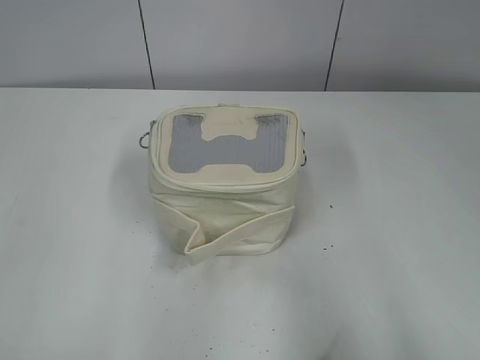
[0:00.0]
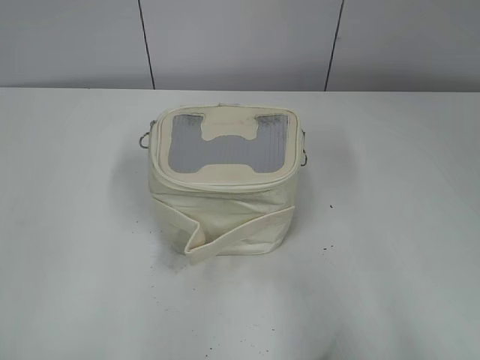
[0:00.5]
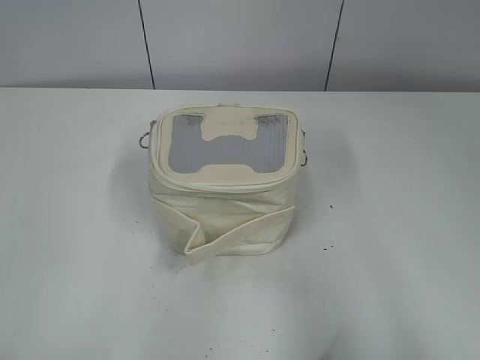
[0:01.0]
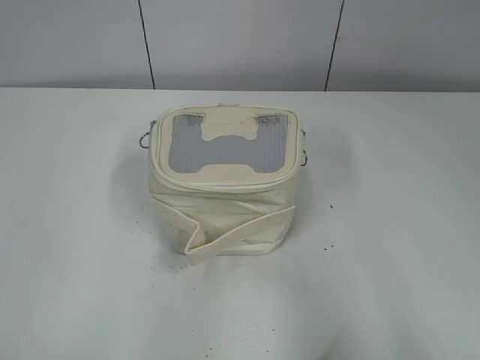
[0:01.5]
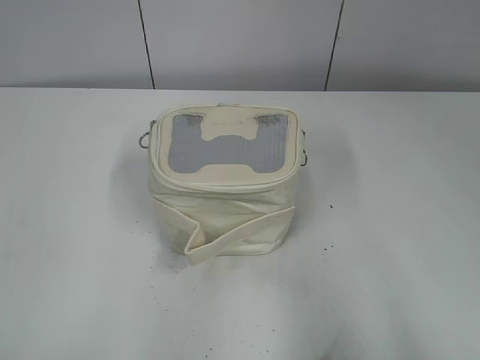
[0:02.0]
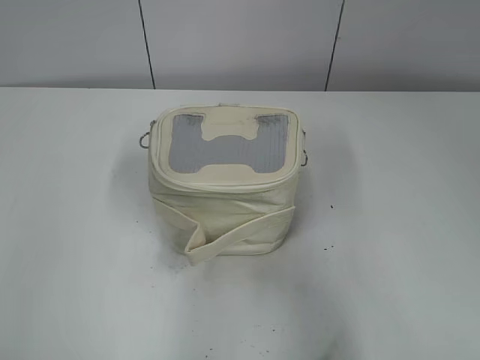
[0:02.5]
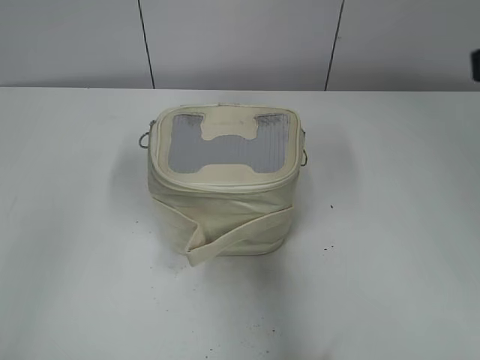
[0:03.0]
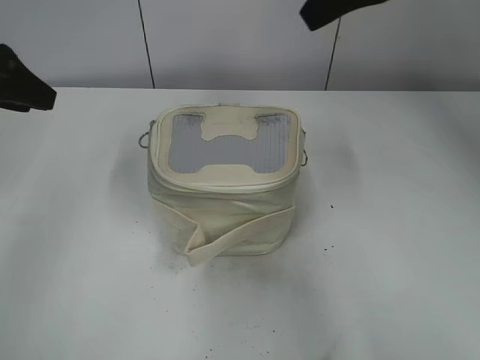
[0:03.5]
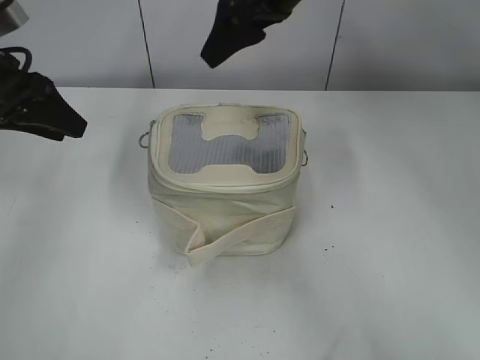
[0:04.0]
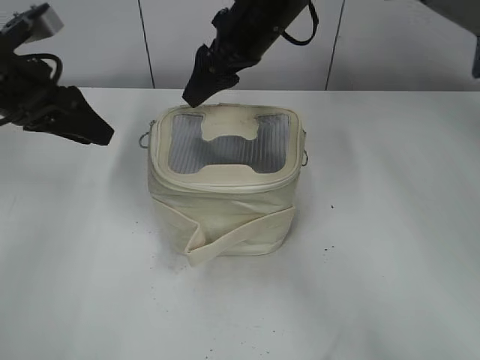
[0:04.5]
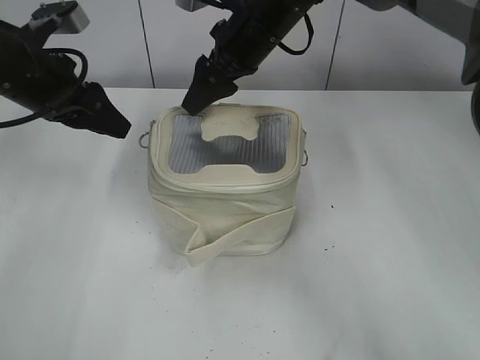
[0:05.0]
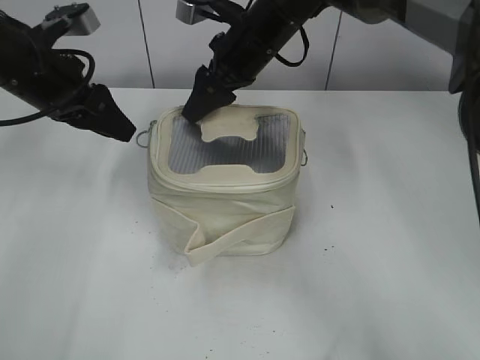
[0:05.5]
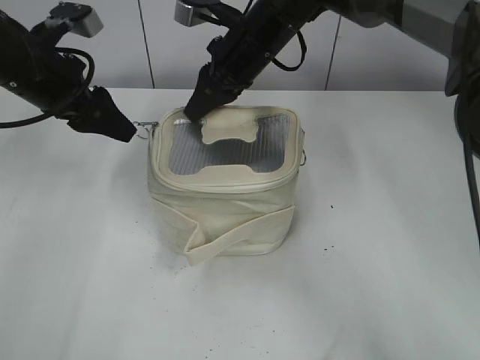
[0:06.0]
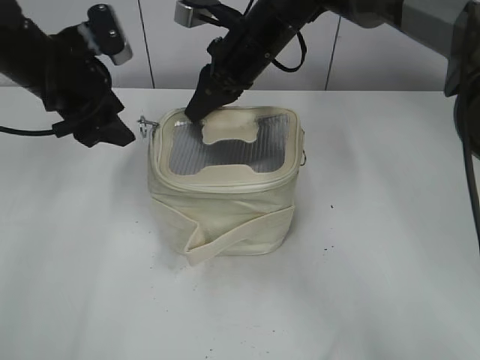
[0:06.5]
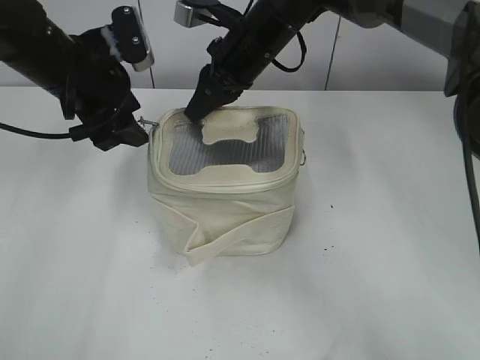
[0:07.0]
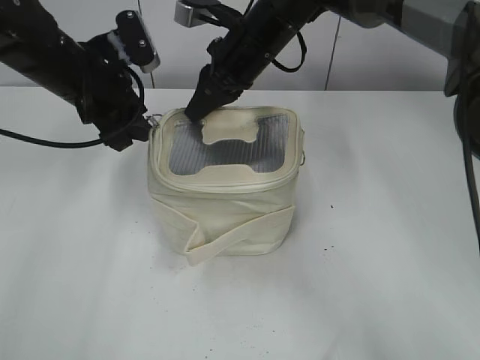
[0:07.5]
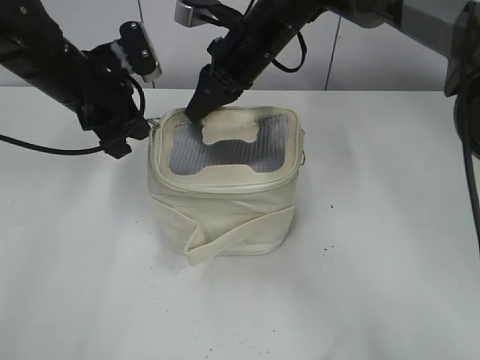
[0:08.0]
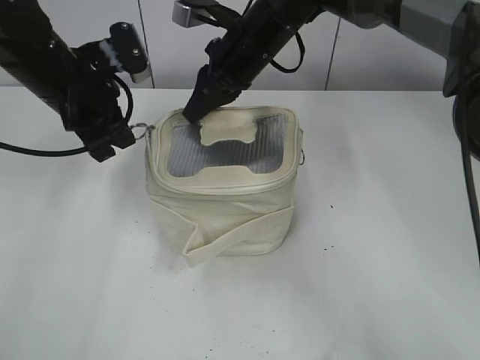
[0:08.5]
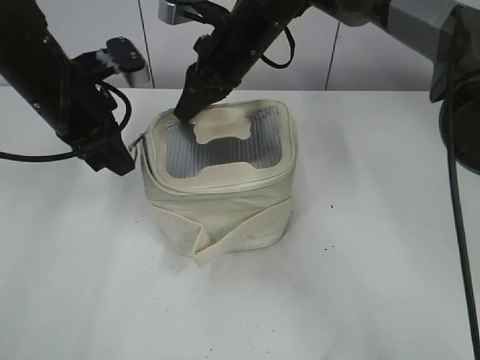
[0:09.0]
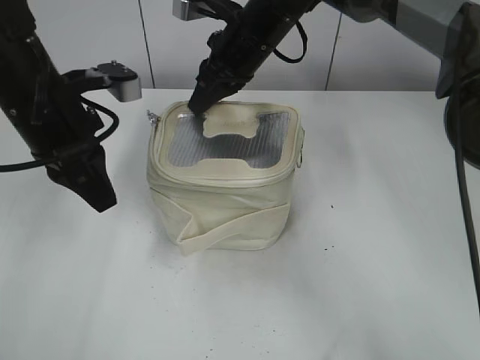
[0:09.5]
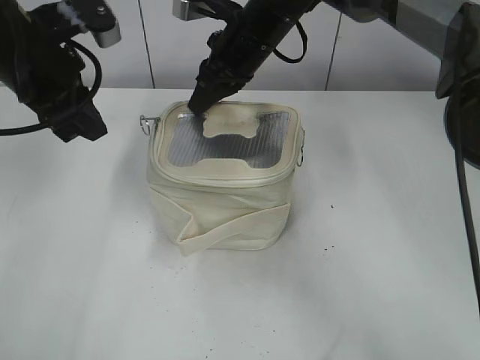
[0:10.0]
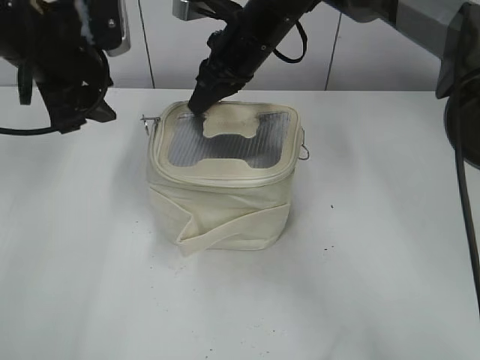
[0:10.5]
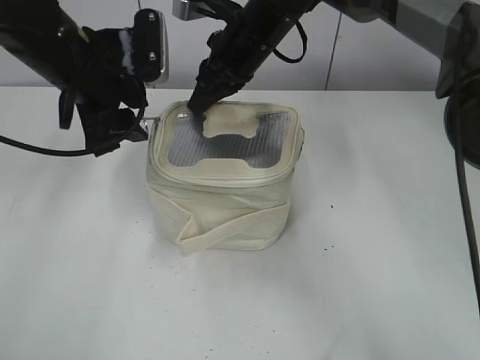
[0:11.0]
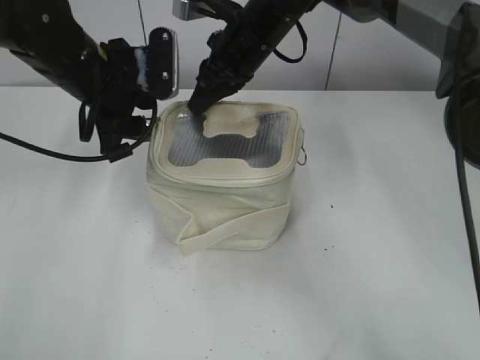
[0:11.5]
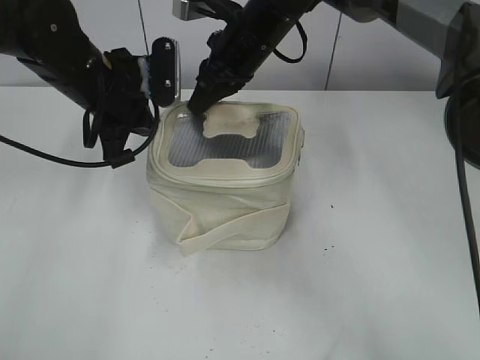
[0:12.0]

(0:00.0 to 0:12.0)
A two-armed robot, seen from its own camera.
0:02.0 - 0:04.0: The right gripper goes approximately 50 cm forward and to the left. Meanwhile the left gripper travels forward by approximately 35 cm.
0:04.0 - 0:06.0: The right gripper is displaced downward by about 10 cm, and closes its fingers; the left gripper travels to the right by about 5 cm.
0:06.0 - 0:08.0: The left gripper ends up approximately 5 cm from where it was, and closes its fingers.
0:08.0 - 0:10.0: The left gripper heads upward, covering roughly 5 cm.
0:10.0 - 0:12.0: The left gripper goes approximately 5 cm downward, and opens and closes again.

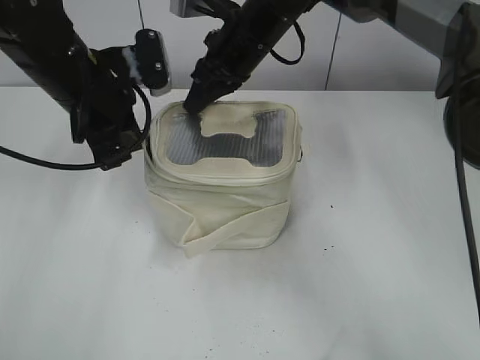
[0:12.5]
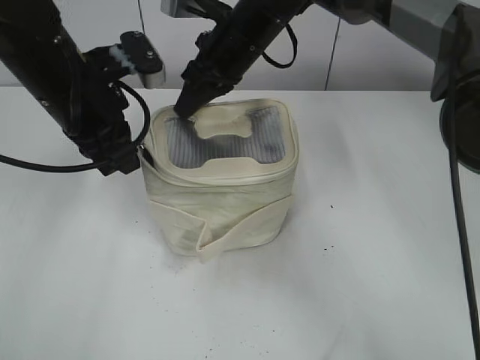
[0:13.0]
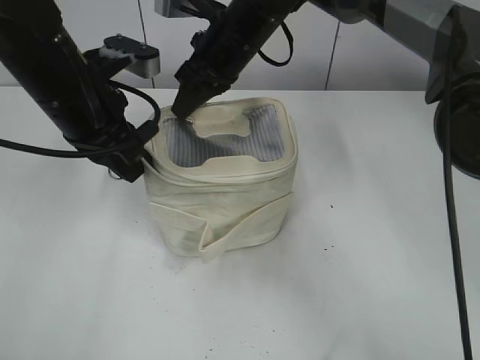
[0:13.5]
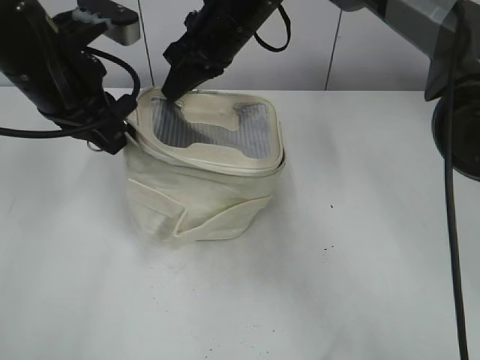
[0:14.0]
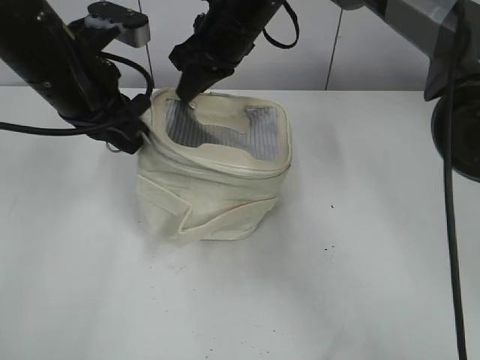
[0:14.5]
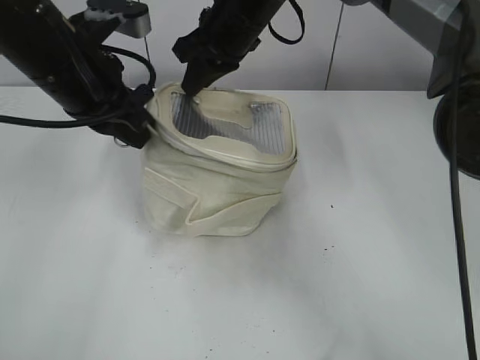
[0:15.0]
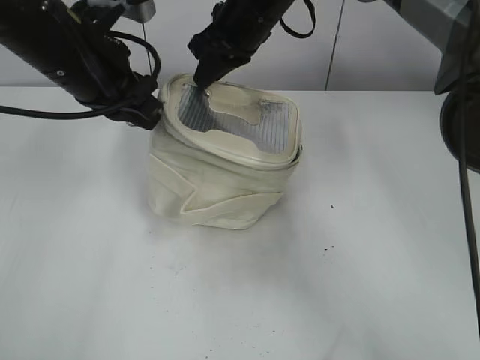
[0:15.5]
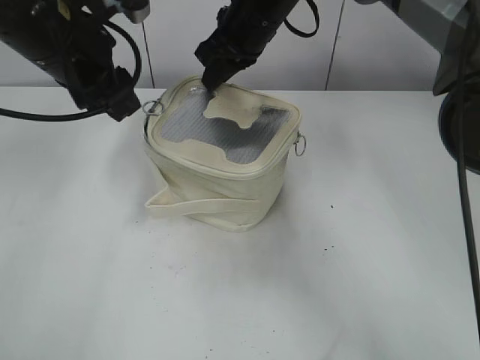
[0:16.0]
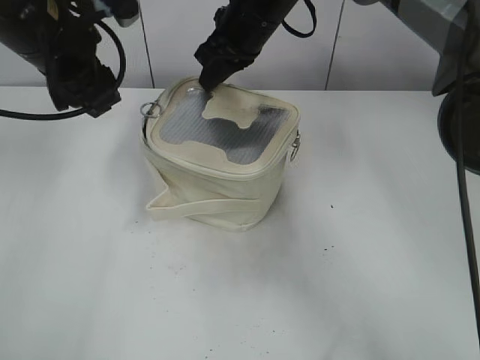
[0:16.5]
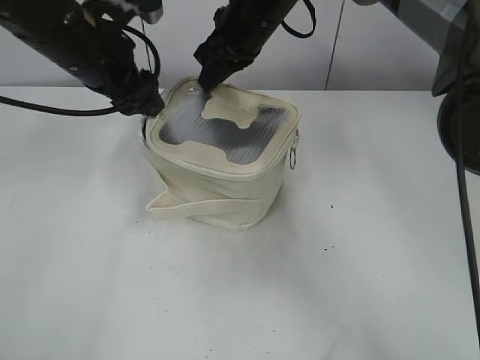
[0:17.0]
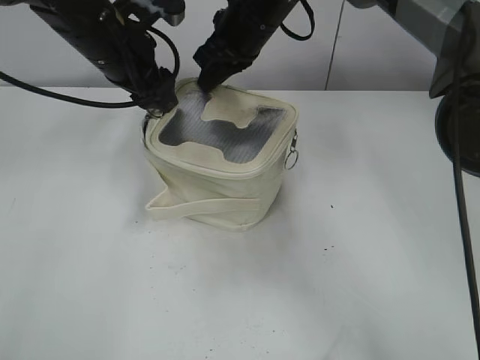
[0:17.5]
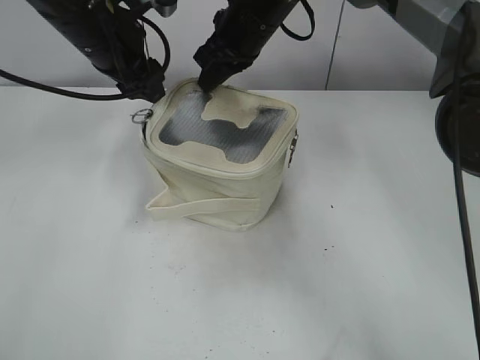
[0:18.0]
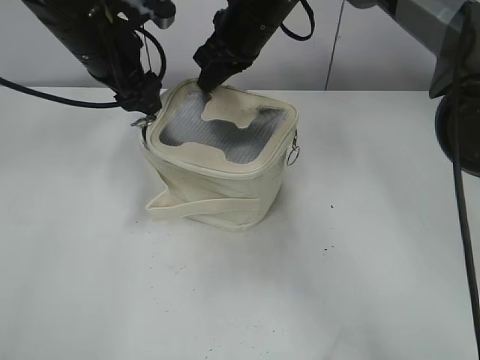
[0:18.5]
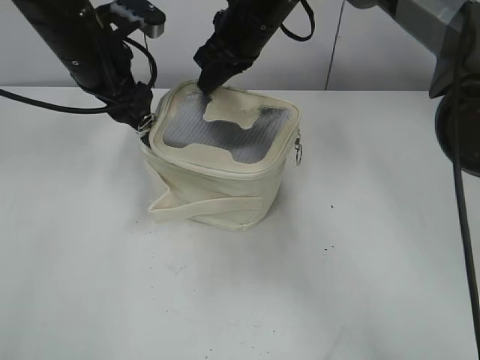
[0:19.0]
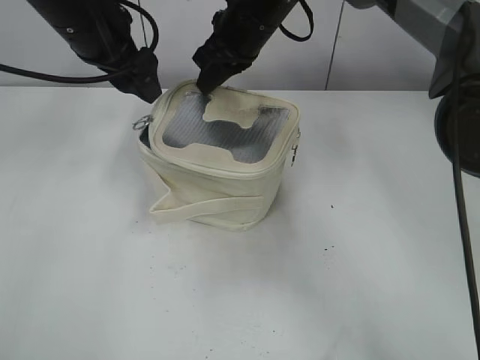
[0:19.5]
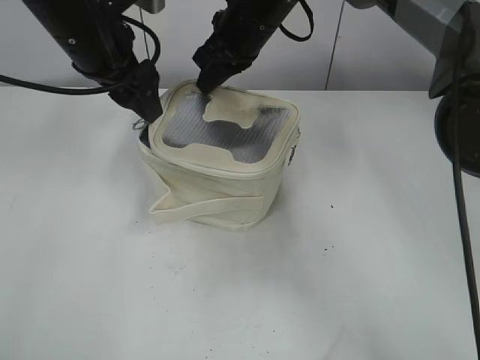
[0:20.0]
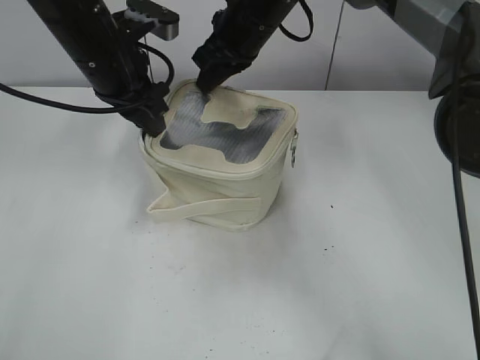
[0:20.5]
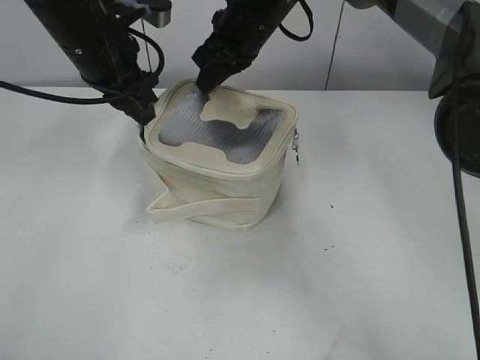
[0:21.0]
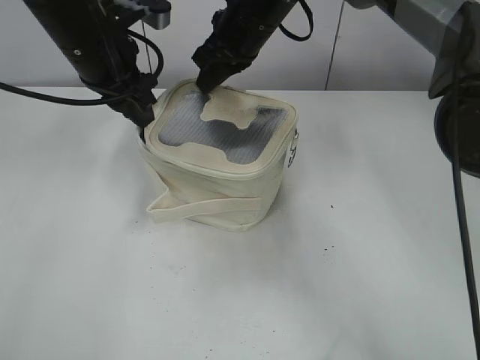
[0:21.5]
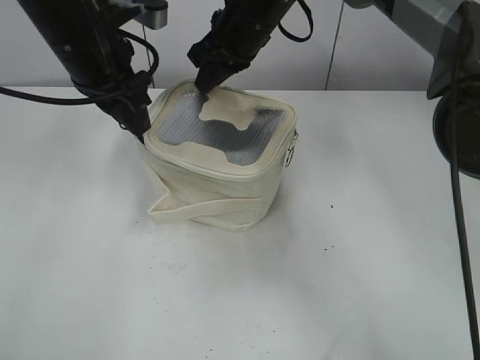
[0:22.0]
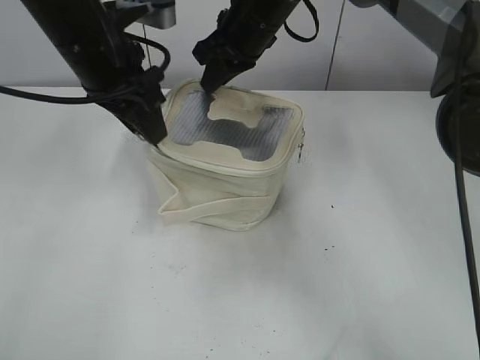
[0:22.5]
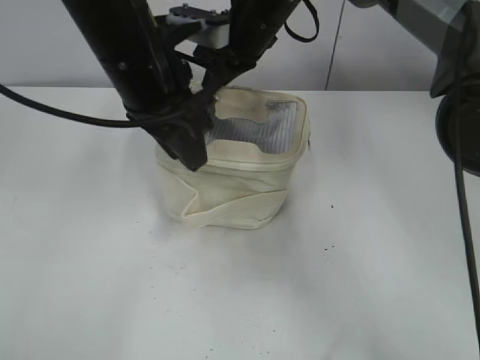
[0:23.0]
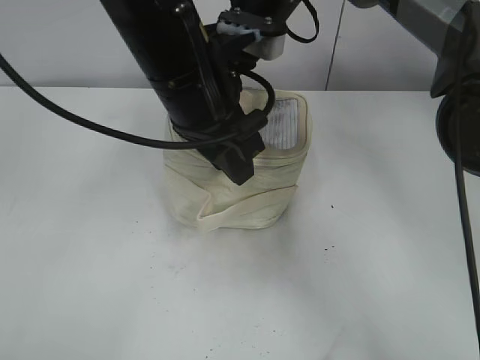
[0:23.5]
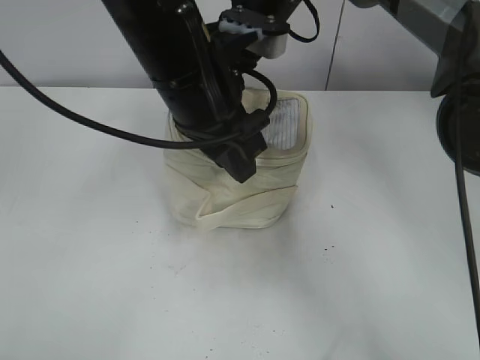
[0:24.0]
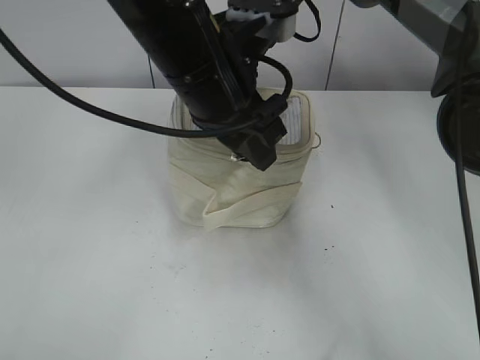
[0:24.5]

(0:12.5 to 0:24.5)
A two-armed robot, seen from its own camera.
0:14.5 - 0:16.5: The left gripper opens up.
0:16.5 - 0:18.5: The left gripper moves forward, approximately 5 cm.
0:18.5 - 0:20.5: The left gripper closes its fingers.
0:20.5 - 0:22.5: The grippers stay close to where they were, moving slightly.
0:22.5 - 0:24.5: The left gripper travels to the right and backward by about 10 cm.

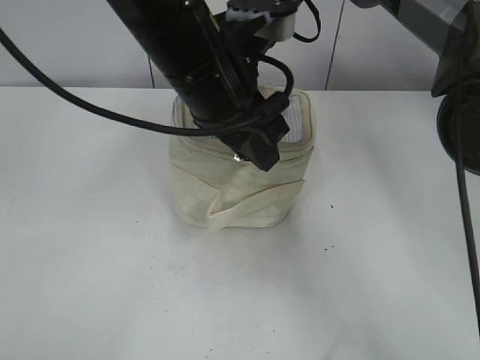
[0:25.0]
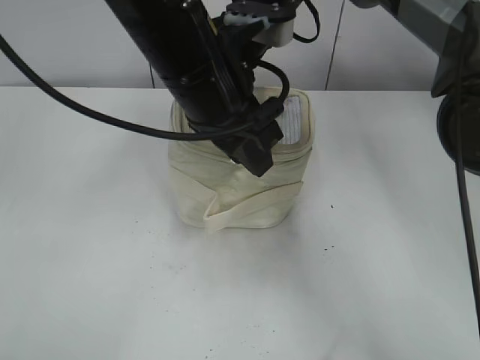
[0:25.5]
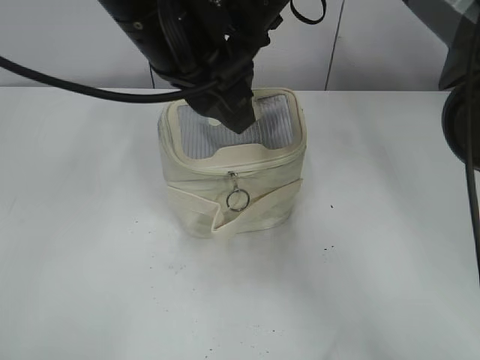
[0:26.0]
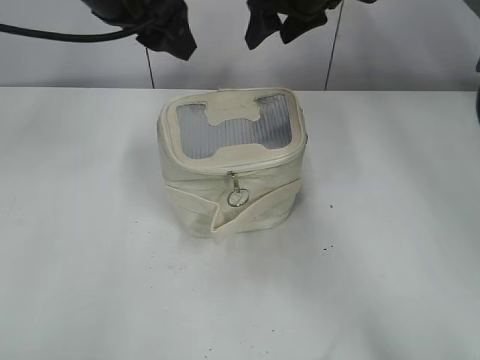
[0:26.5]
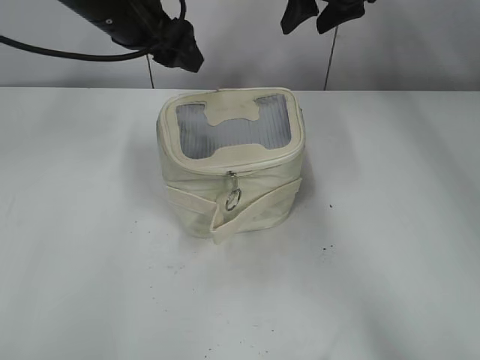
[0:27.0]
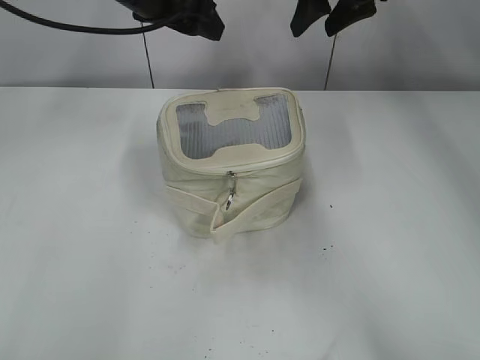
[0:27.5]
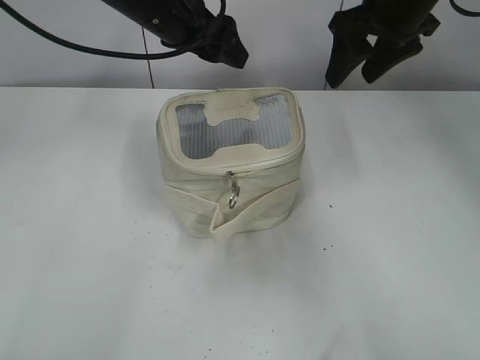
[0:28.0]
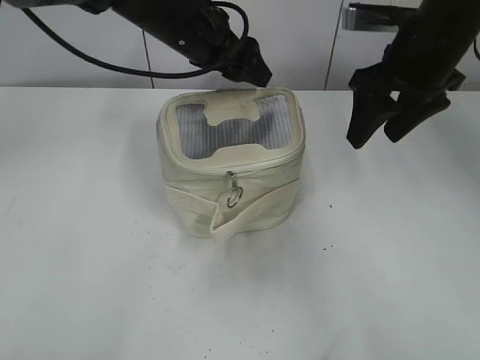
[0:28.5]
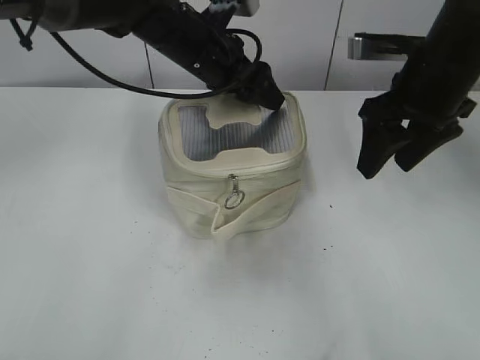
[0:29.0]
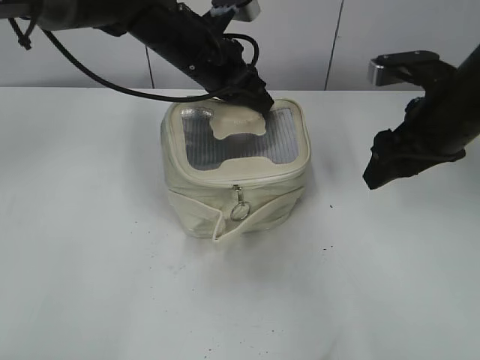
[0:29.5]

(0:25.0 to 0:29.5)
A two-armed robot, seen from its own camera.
0:25.0 - 0:27.0: The left gripper shifts some 15 cm forward and to the left, and opens up; the right gripper is displaced to the right by roughly 10 cm, and opens its fingers.
0:27.0 - 0:29.5: The left gripper travels to the right and downward by approximately 10 cm, and closes, while the right gripper goes approximately 20 cm backward.
